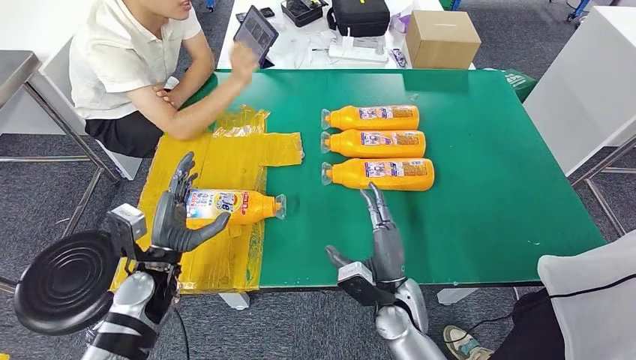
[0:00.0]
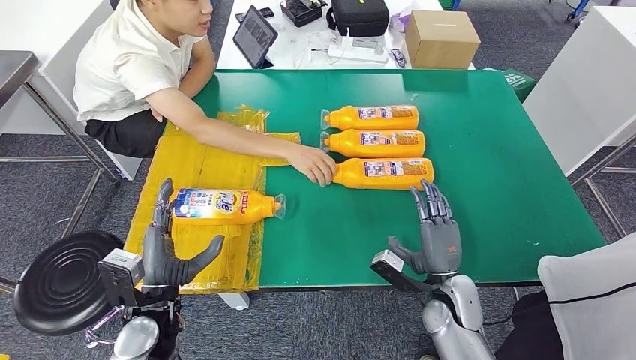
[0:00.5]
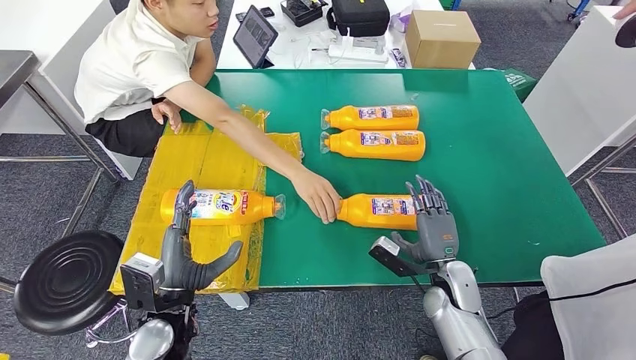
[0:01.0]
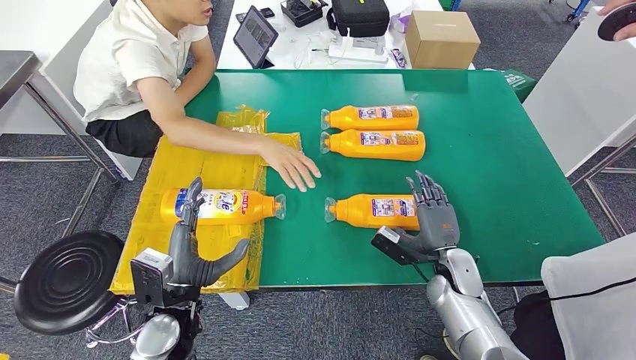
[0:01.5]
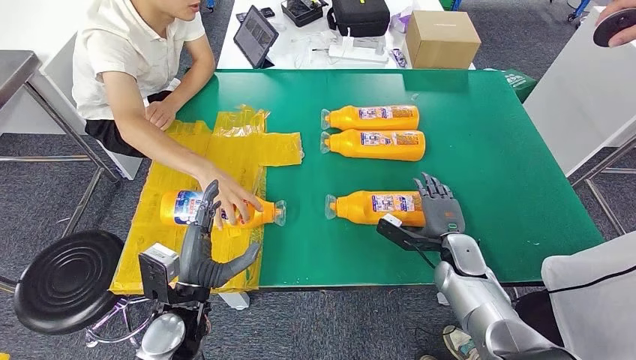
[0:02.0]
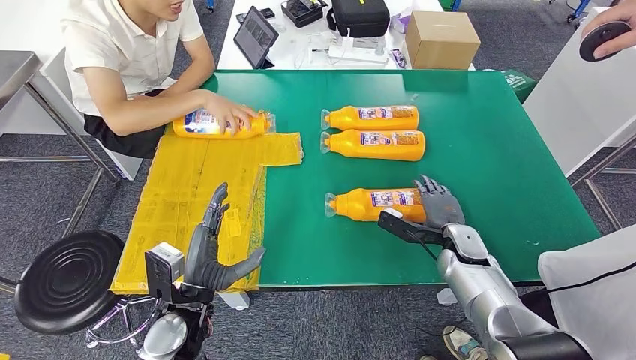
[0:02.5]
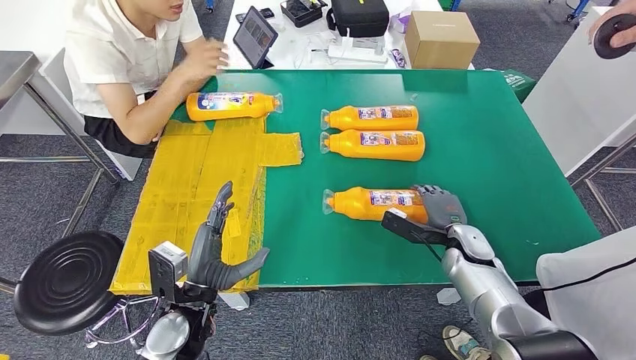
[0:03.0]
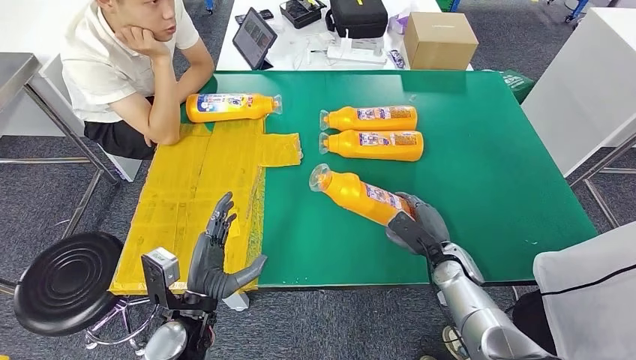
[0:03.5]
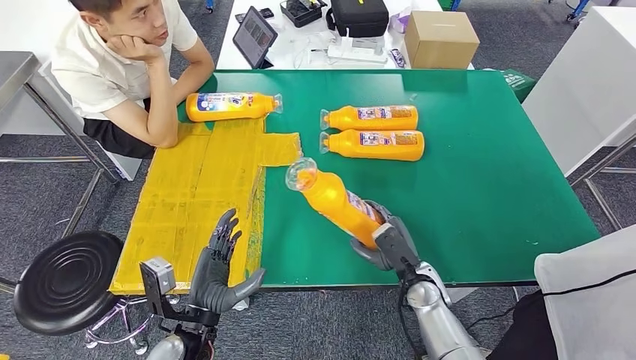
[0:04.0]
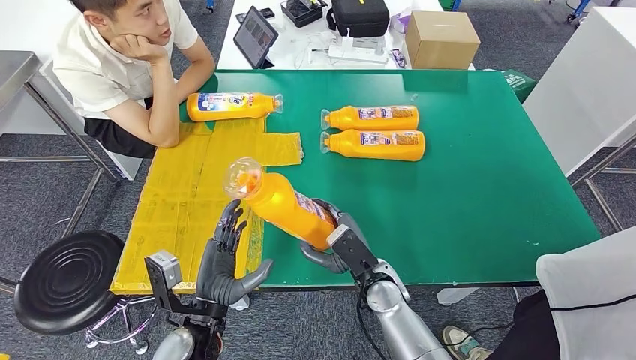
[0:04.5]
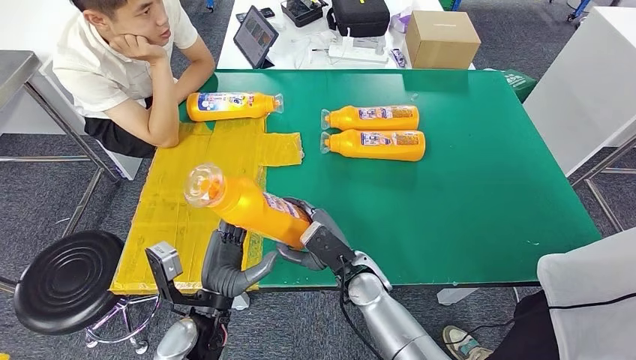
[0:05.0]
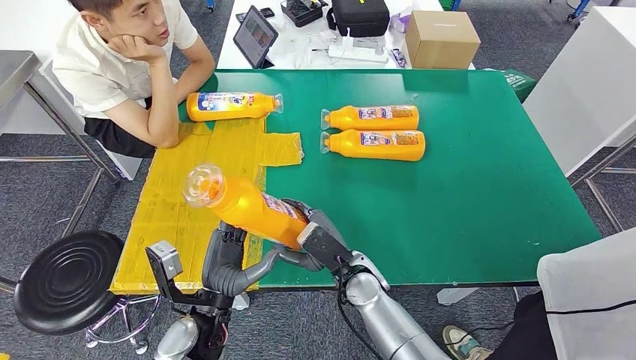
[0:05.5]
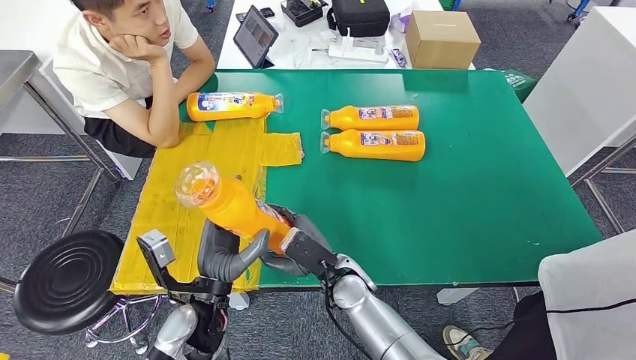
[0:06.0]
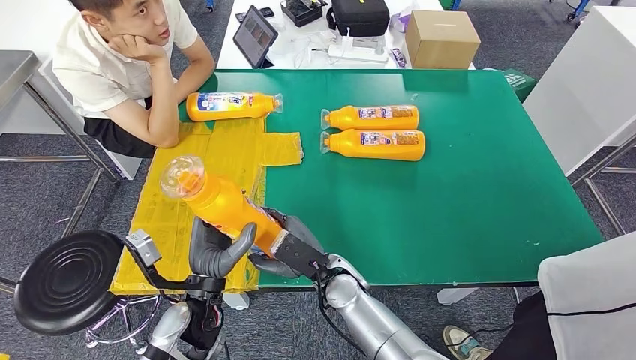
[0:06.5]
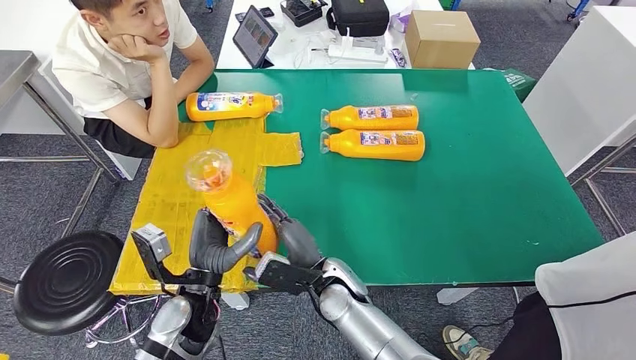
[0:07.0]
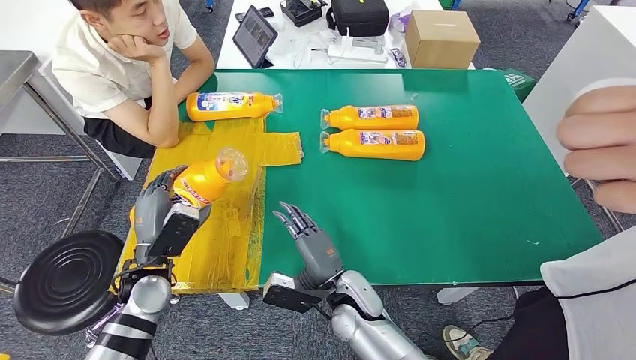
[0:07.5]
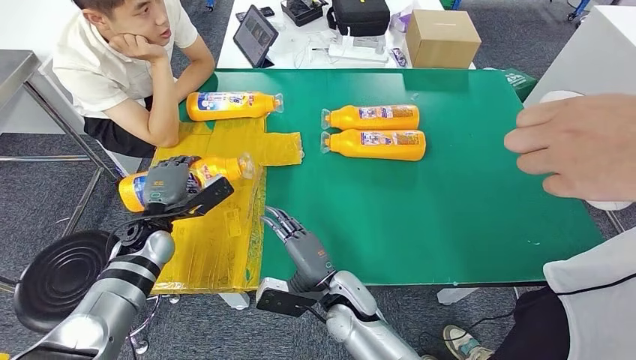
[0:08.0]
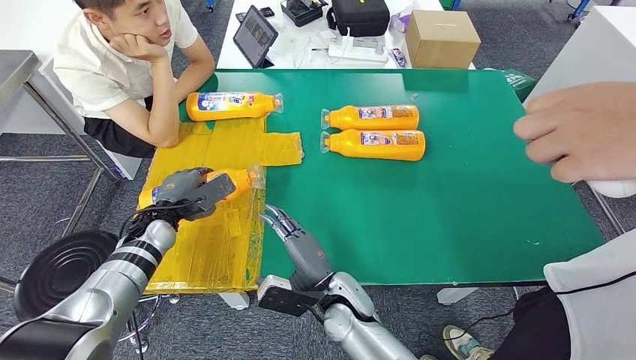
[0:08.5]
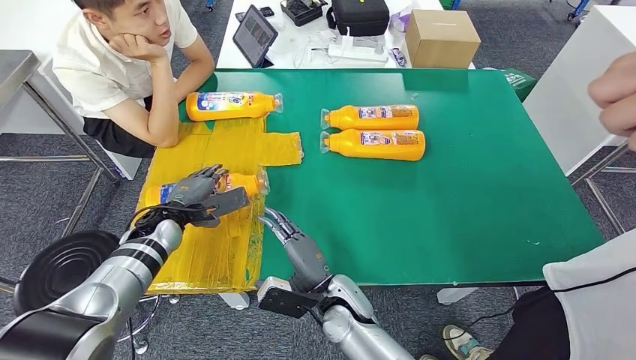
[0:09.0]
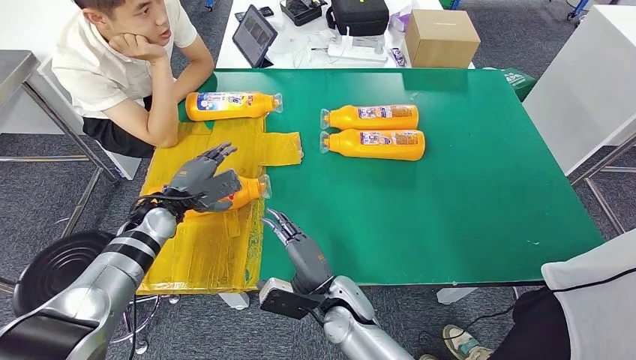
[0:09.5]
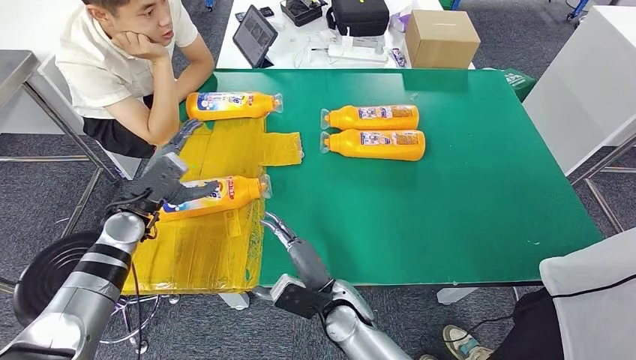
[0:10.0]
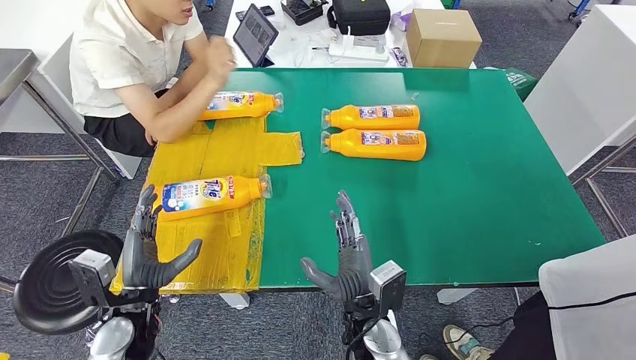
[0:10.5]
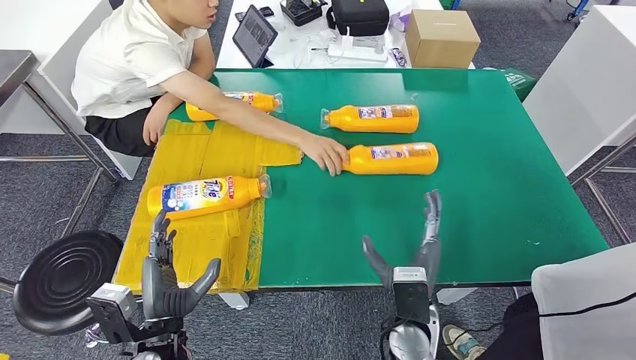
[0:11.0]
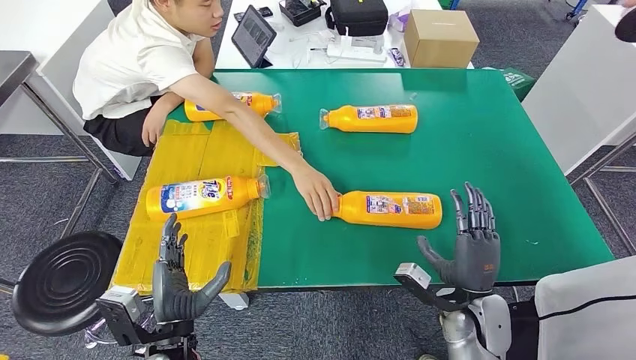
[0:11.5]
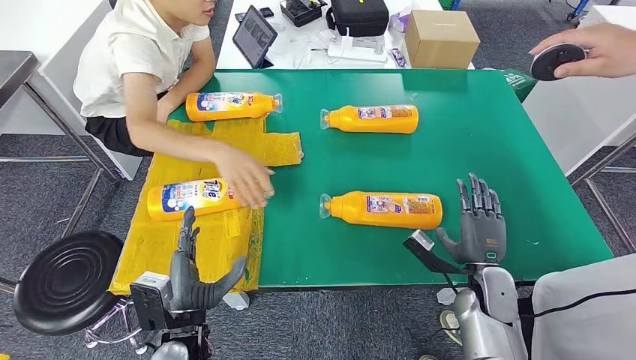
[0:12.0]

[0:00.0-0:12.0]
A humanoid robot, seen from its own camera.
Step, 0:00.0 to 0:03.5: Pick up the bottle from the table.
Step, 0:04.5 to 0:10.0: Flip the bottle to face forward.
0:04.0 to 0:06.0: The left hand shifts by about 5 cm. Meanwhile the right hand is displaced to the left by roughly 15 cm.

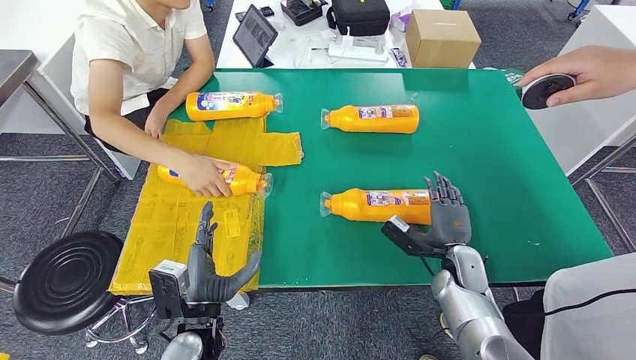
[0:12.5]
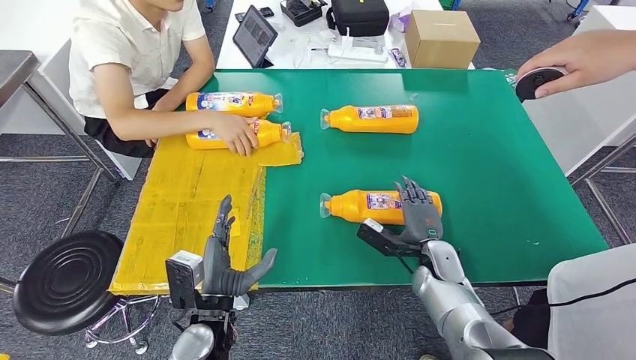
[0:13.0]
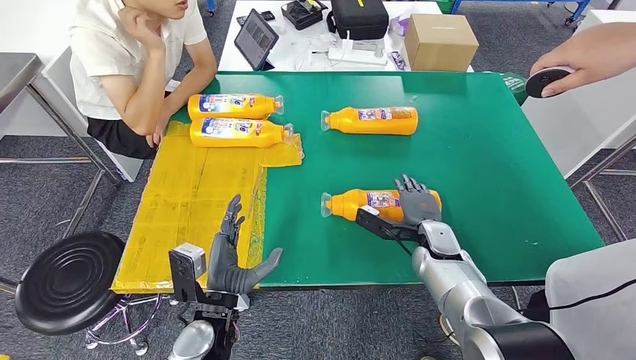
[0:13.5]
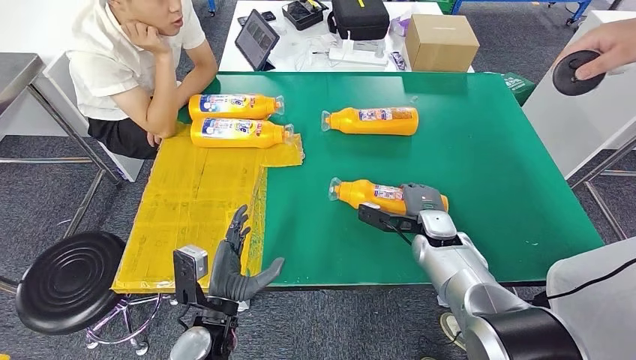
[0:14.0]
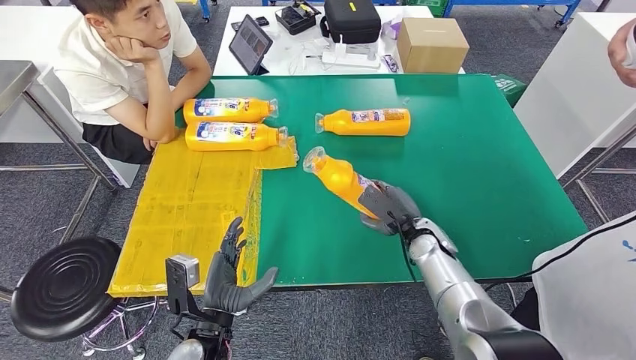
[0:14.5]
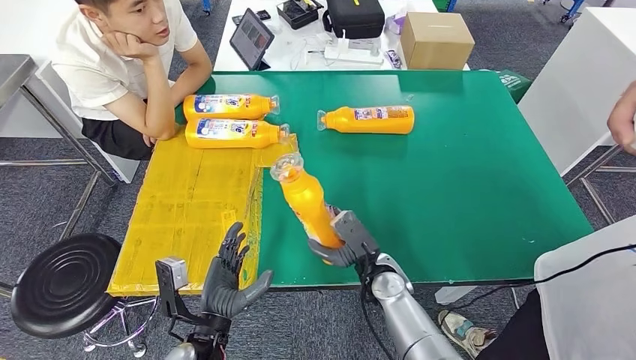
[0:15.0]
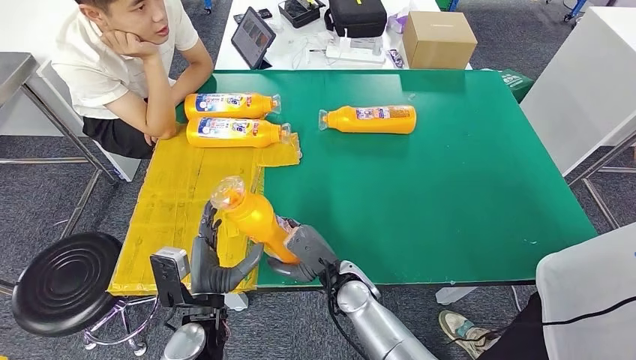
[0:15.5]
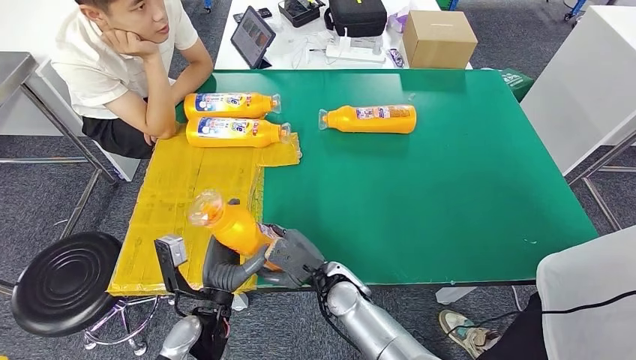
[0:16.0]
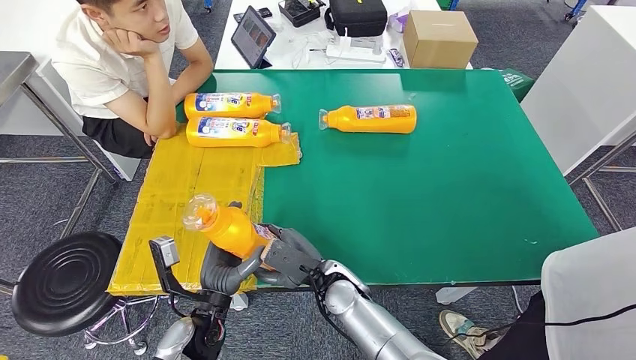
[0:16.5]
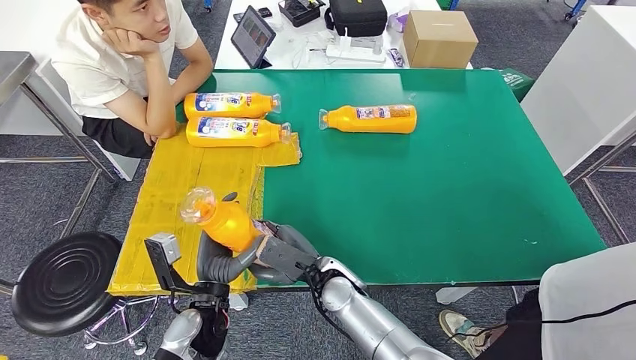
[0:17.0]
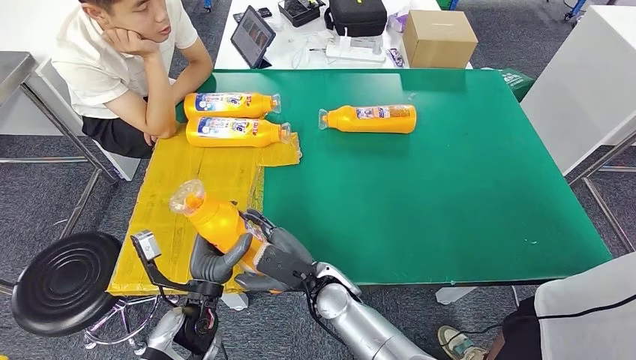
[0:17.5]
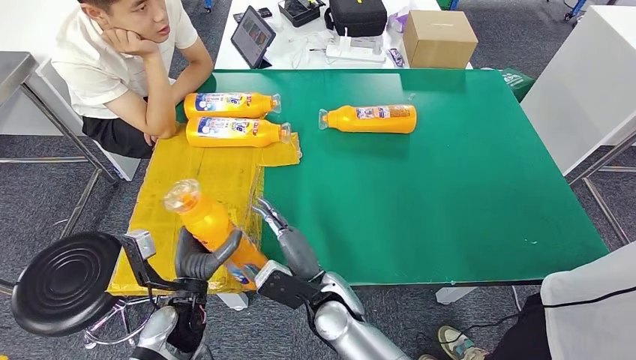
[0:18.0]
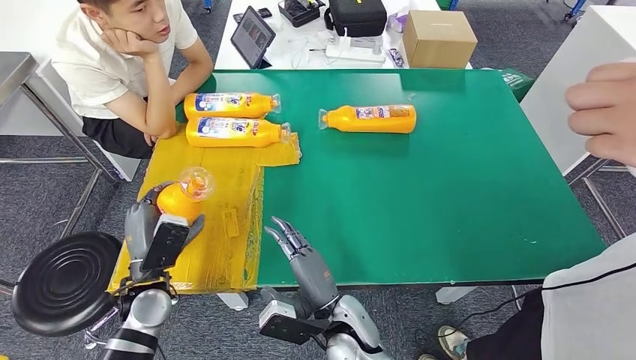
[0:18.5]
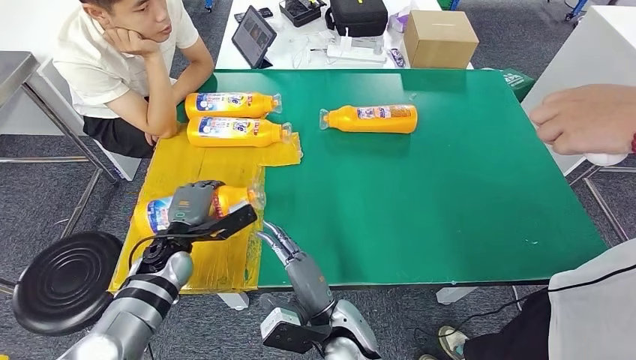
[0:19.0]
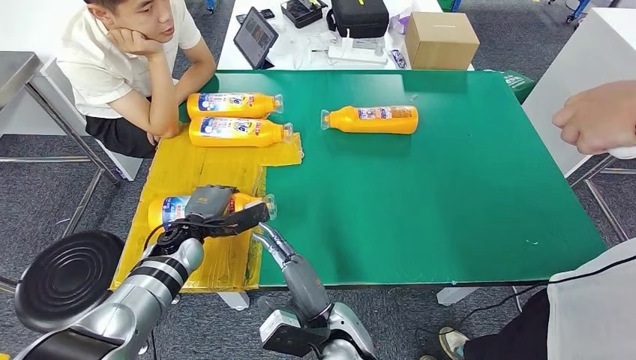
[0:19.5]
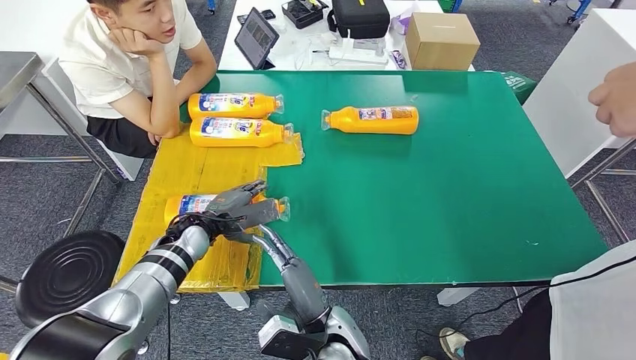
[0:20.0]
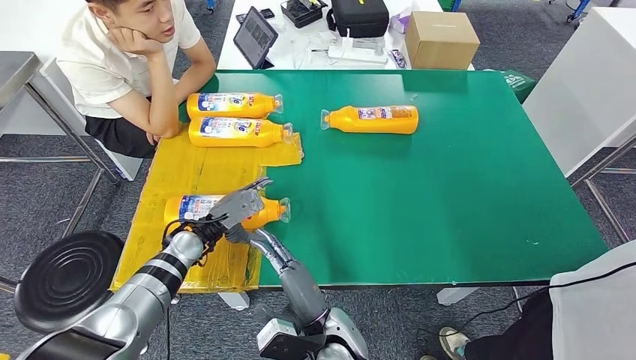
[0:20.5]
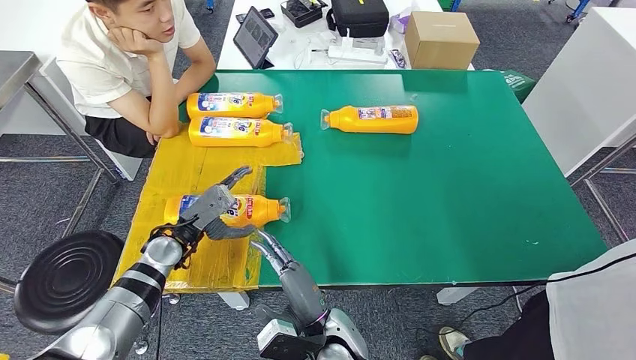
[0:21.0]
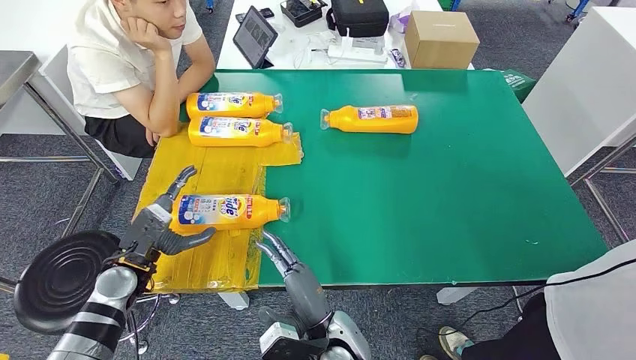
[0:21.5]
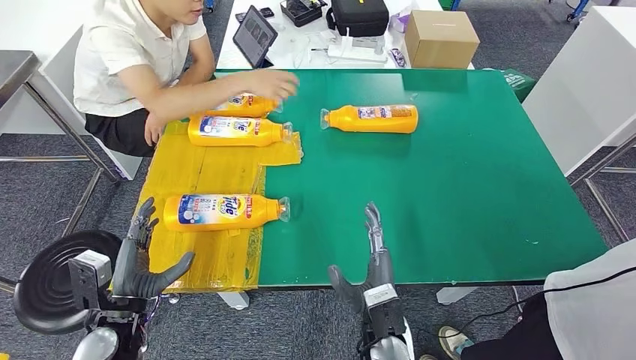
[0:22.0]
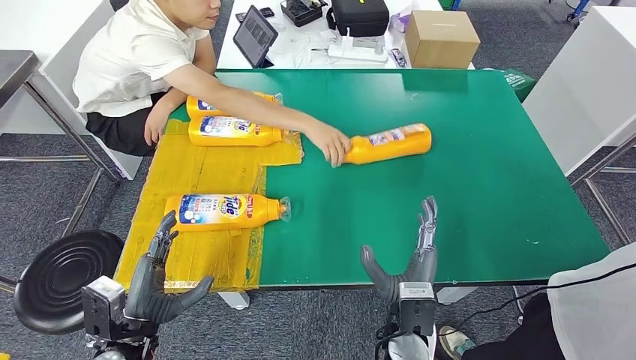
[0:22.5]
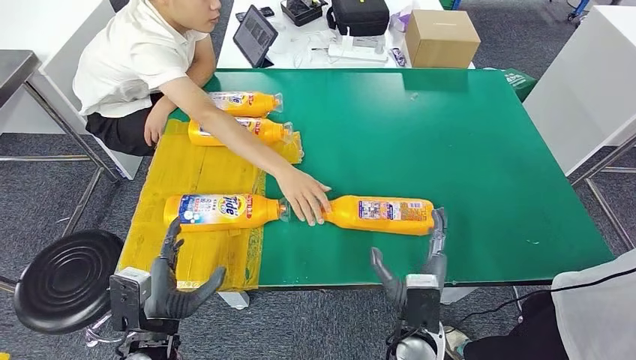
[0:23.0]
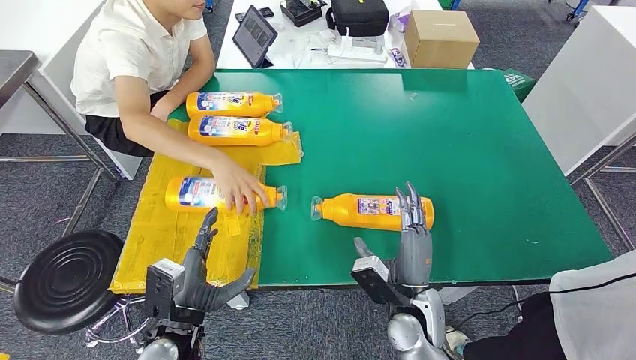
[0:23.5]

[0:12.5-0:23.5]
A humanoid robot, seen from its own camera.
Step, 0:12.5 to 0:15.0: Pick up the bottle from the table.
Step, 0:16.0 to 0:21.0: Flip the bottle to face forward.
0:20.0 to 0:21.5: The left hand travels to the left and backward by some 10 cm.
